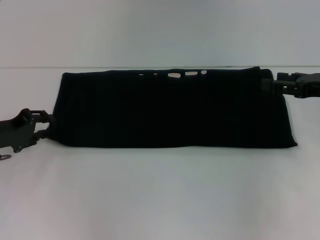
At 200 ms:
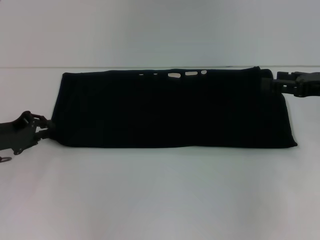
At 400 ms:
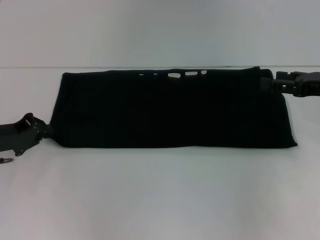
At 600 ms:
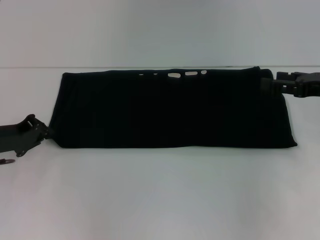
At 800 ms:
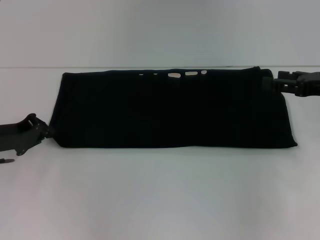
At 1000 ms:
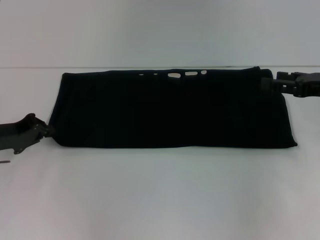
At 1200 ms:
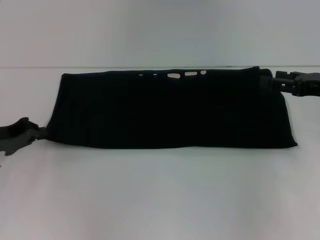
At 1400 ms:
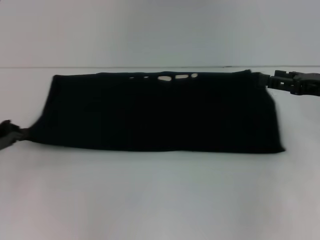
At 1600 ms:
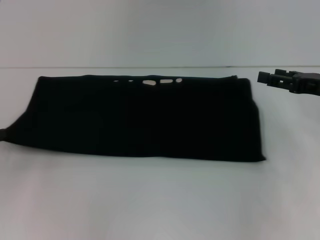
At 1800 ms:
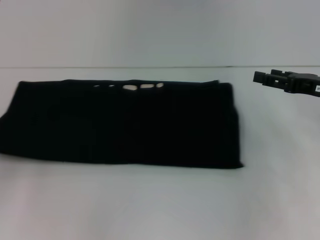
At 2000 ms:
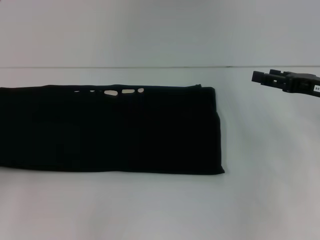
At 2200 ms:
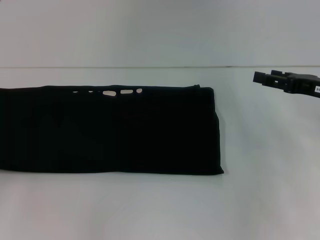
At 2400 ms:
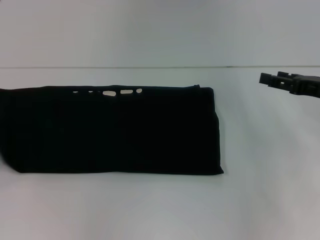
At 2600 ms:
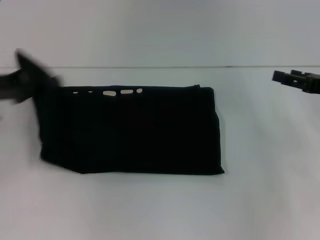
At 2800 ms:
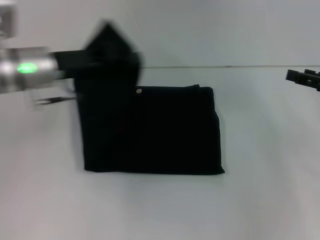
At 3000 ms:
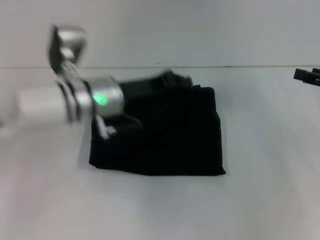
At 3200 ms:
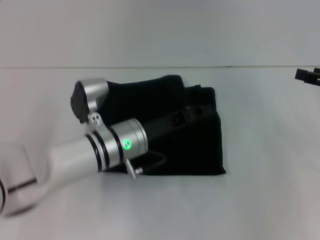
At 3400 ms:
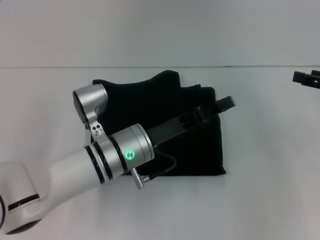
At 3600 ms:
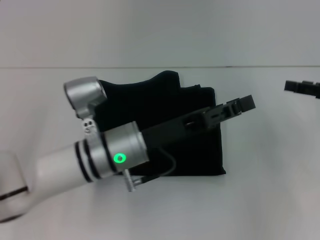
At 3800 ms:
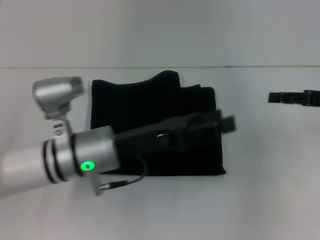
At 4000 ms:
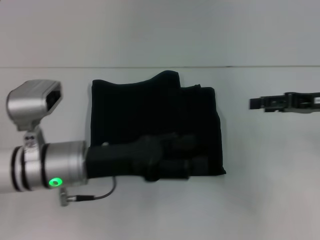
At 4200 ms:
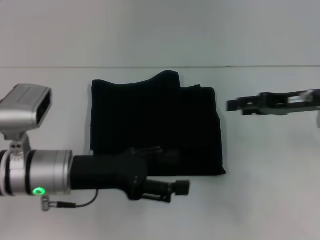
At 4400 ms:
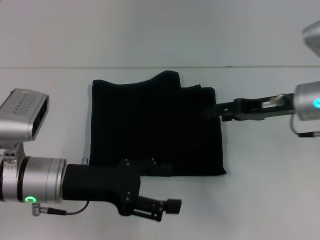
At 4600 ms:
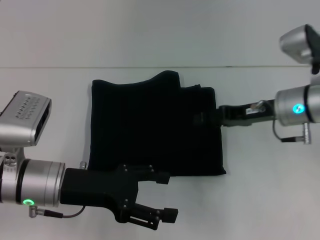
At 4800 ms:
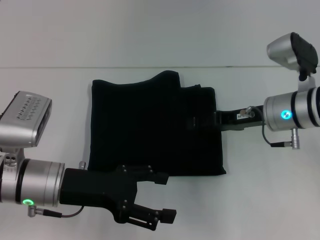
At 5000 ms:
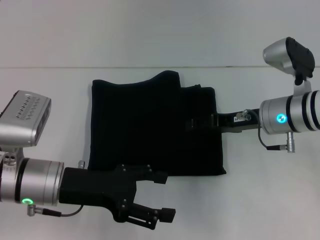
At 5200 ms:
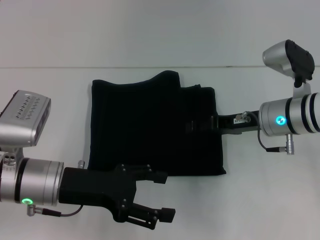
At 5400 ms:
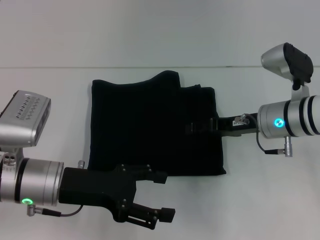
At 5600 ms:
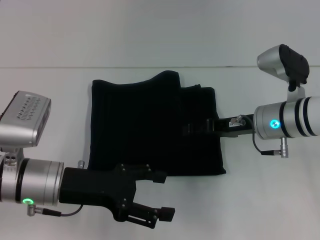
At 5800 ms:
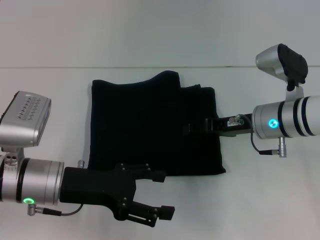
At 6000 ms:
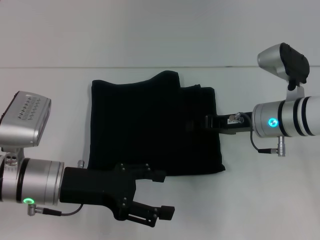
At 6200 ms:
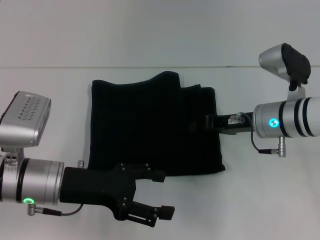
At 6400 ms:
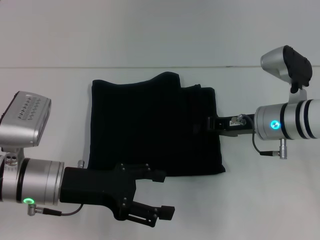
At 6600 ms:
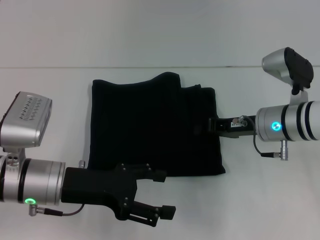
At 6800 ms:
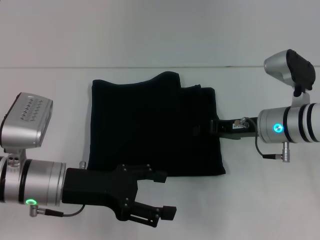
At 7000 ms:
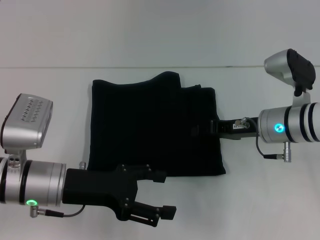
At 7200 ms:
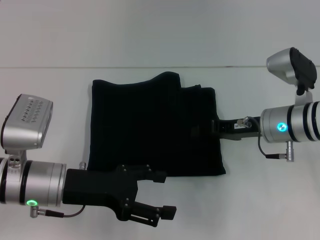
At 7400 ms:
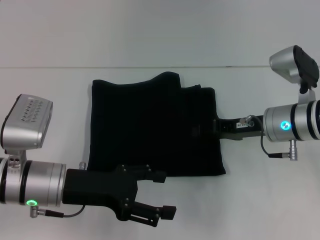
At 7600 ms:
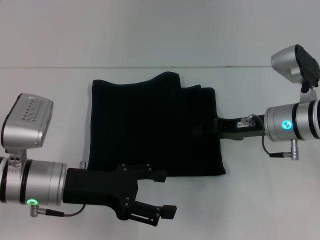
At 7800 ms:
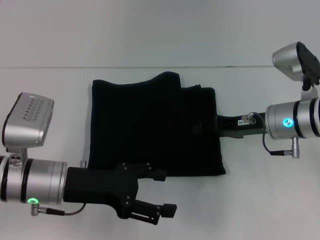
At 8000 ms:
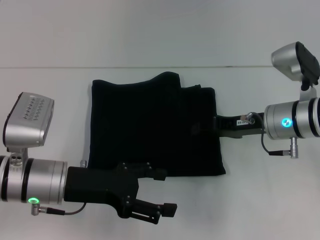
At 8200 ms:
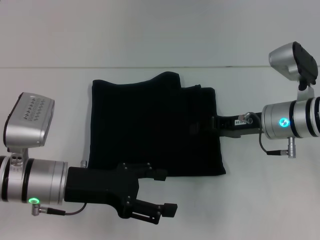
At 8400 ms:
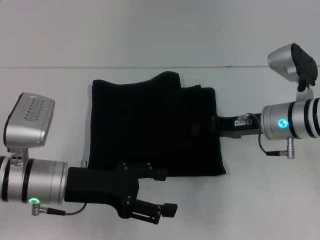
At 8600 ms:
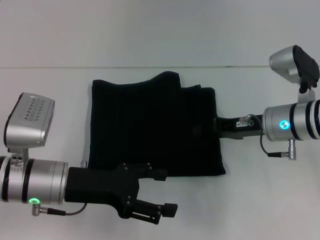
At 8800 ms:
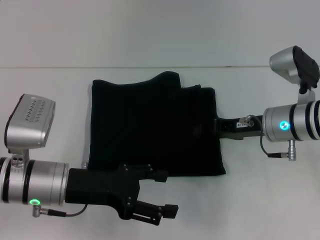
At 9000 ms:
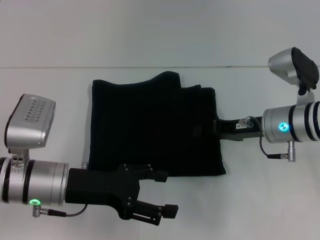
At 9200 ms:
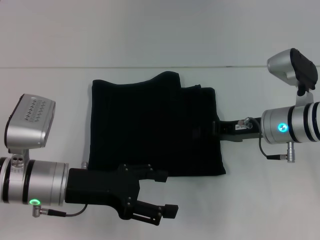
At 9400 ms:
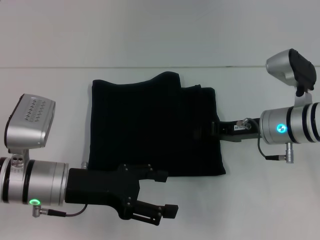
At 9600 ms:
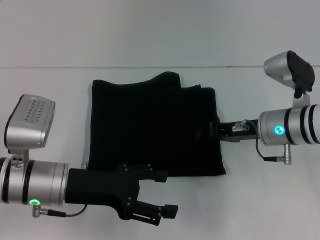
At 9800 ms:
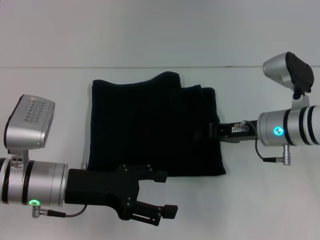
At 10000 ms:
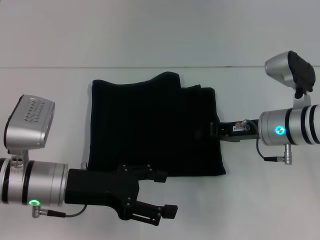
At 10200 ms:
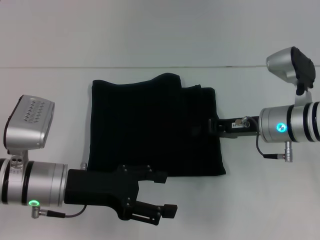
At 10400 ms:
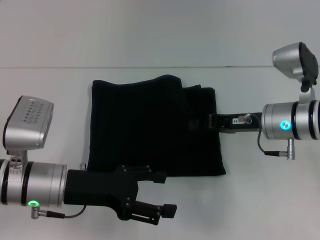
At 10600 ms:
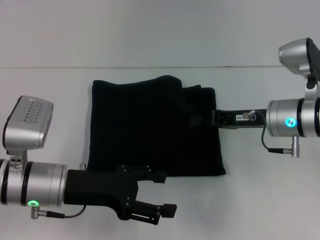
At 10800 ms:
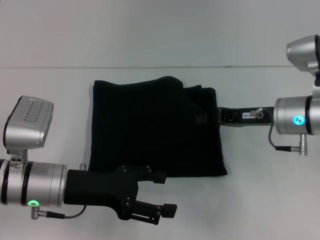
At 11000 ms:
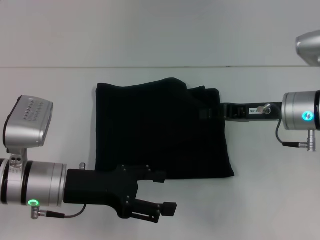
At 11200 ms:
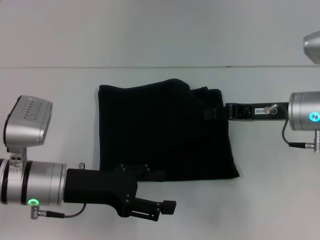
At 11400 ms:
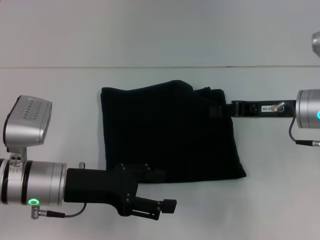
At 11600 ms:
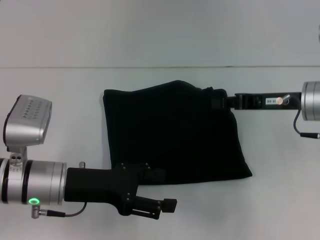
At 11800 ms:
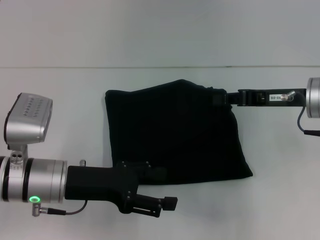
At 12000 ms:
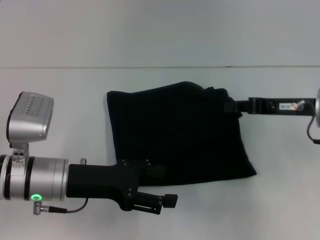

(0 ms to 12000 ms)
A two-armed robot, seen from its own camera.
Step, 0 ms - 4000 ms: Fold the clothes with your left hand.
0 ms - 1600 ms: The left gripper heads to the left, covering approximately 5 cm, and closes its fingers.
1600 ms - 3000 ms: The left gripper is displaced to the right by some 25 cm.
3000 ms - 4400 ms: The right gripper heads to the left, covering some 15 cm. Meanwhile the left gripper shifts approximately 15 cm backward and to the left, and opens up.
4400 ms - 6000 ms: The right gripper travels to the left by some 5 cm.
6000 ms - 7600 ms: The grippers stay close to where they were, moving slightly.
7600 ms - 9000 ms: Both grippers stay put.
9000 ms - 10400 ms: There are only small adjustments of the grippers.
10400 ms - 12000 ms: The right gripper travels to the right by about 5 cm.

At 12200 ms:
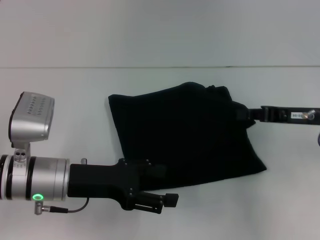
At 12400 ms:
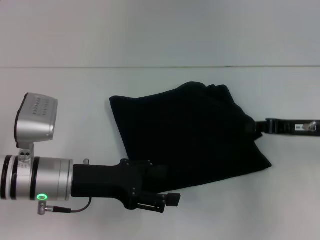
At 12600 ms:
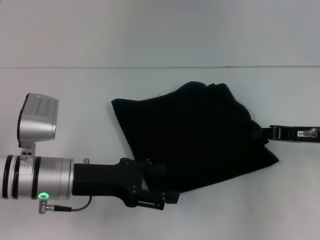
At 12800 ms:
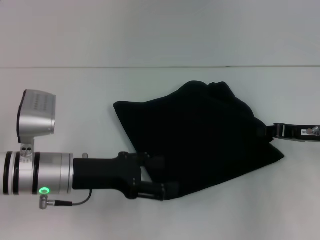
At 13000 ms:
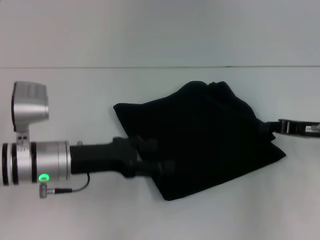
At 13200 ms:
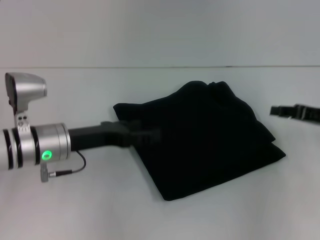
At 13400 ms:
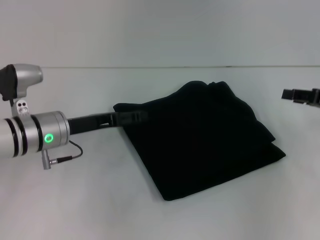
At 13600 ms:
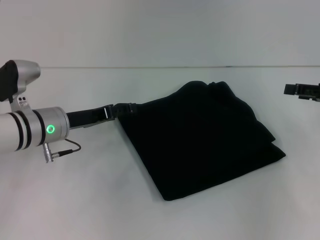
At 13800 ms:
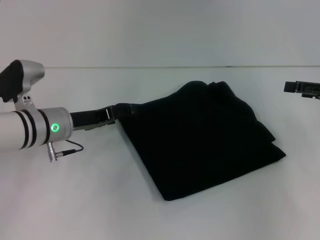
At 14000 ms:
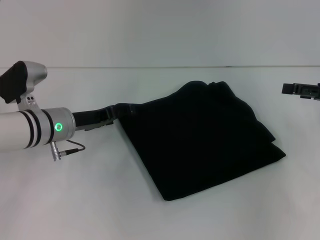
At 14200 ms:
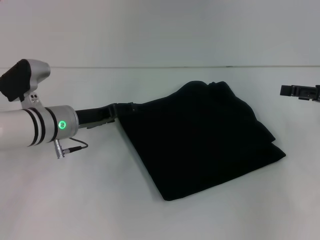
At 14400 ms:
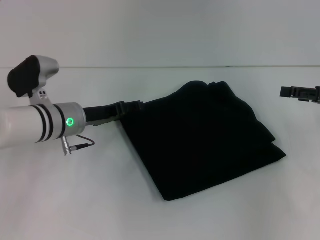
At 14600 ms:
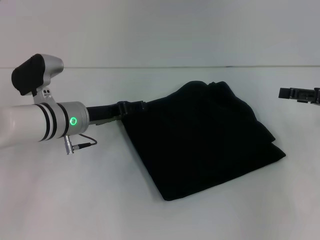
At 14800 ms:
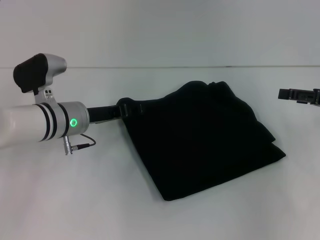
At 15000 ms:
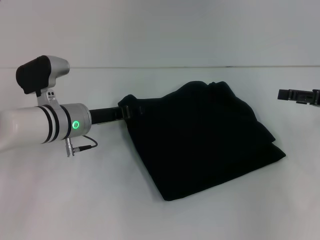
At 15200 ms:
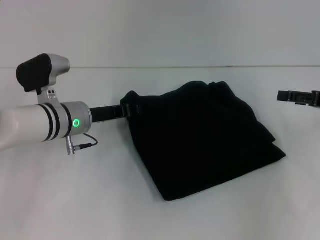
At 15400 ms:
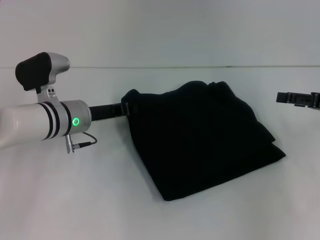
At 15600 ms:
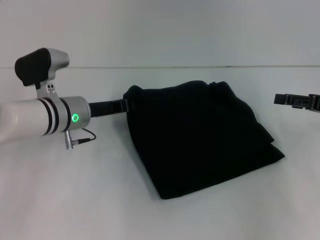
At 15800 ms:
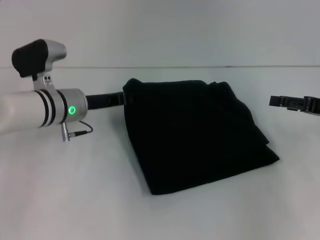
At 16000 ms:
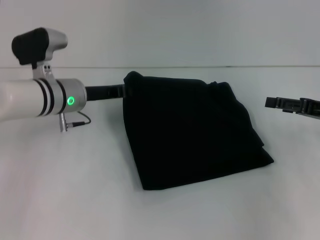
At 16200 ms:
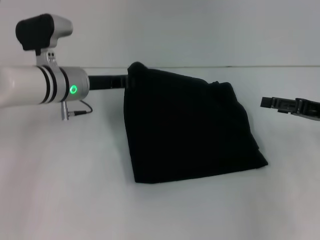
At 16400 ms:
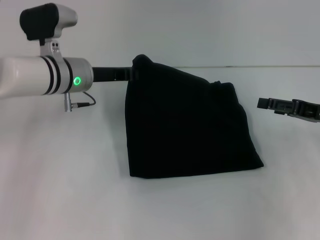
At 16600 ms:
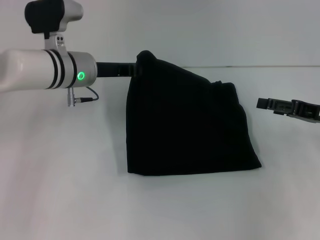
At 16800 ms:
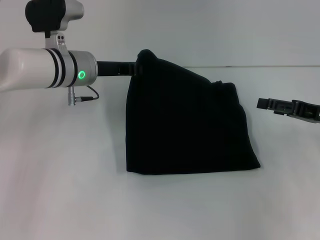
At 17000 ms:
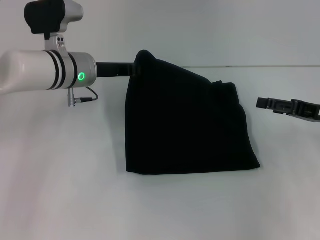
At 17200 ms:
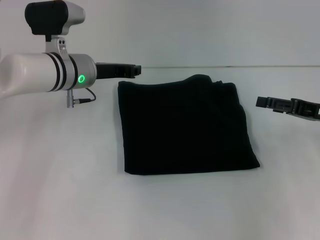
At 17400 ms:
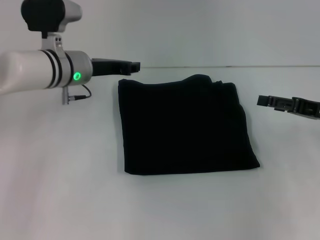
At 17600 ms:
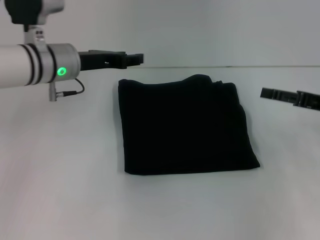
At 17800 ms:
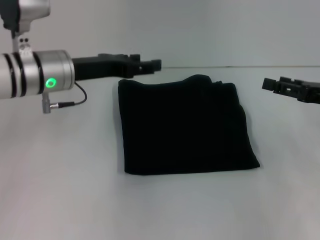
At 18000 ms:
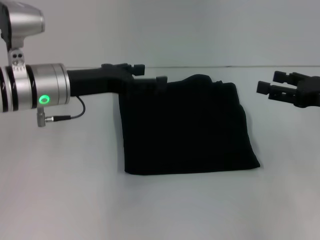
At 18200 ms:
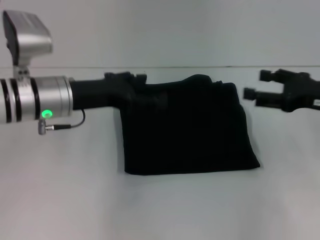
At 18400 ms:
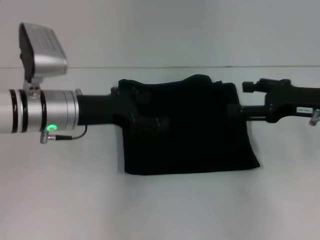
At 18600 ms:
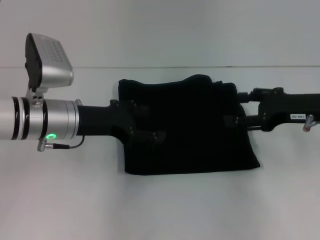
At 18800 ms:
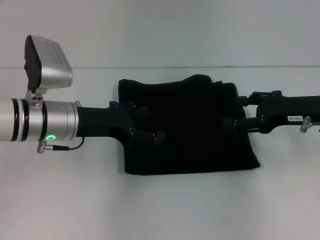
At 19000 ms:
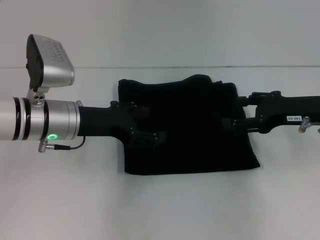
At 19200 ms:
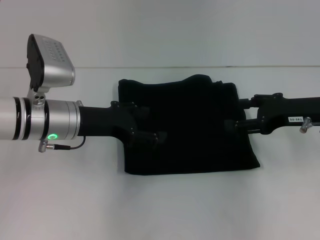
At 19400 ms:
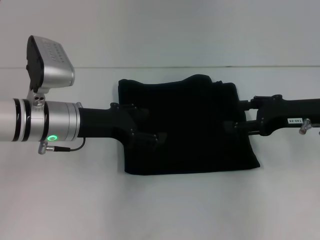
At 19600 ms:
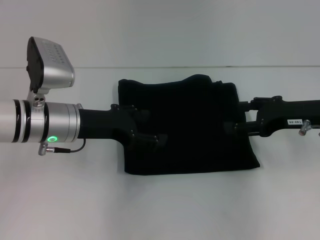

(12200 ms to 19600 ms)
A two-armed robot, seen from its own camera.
12200 ms - 13600 ms: The left gripper travels forward by about 10 cm; the right gripper is displaced to the right by approximately 10 cm, and opens its fingers.
13600 ms - 15200 ms: The left gripper closes its fingers.
15200 ms - 16600 ms: The left gripper travels upward and forward by roughly 10 cm, and closes up.
16600 ms - 18200 ms: The left gripper is displaced backward by roughly 10 cm, and opens its fingers.
18200 ms - 19600 ms: There are only small adjustments of the grippers.
